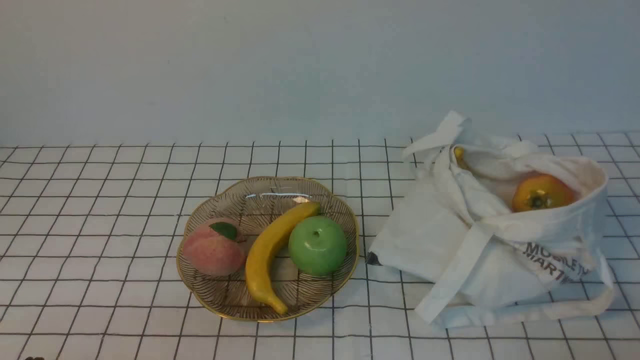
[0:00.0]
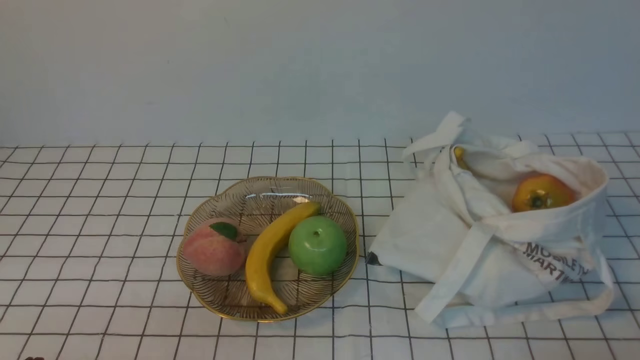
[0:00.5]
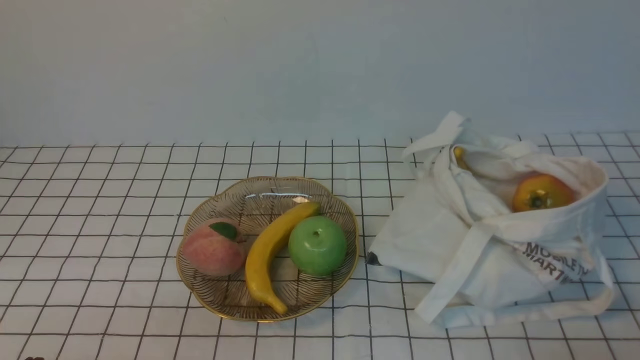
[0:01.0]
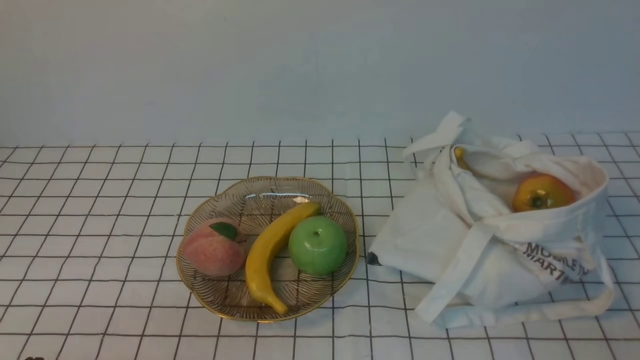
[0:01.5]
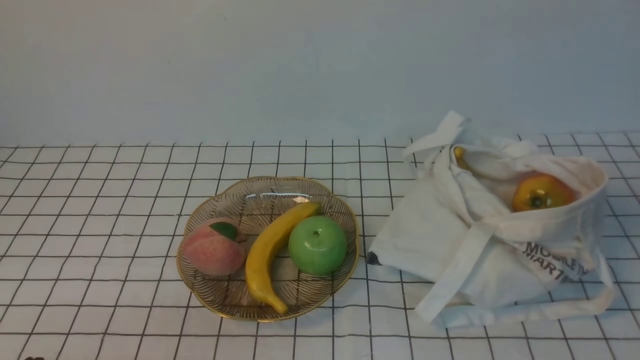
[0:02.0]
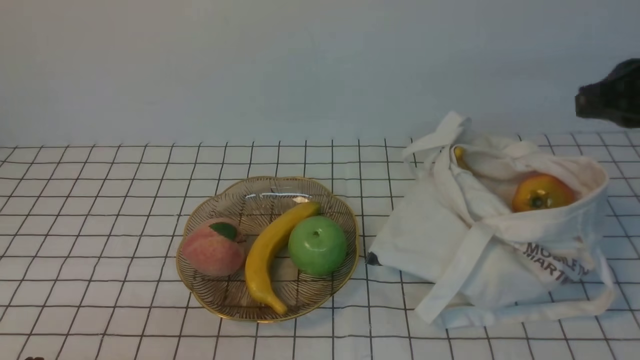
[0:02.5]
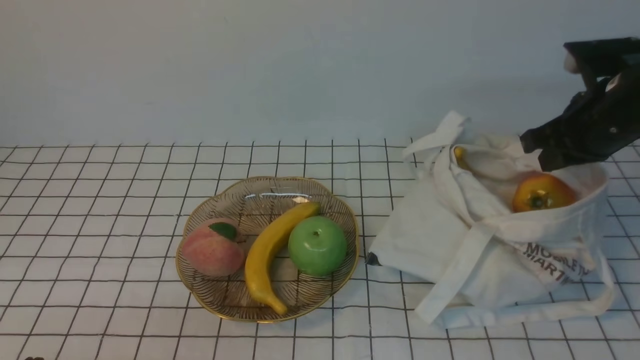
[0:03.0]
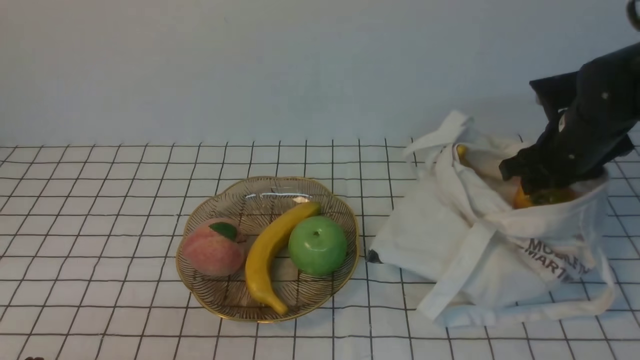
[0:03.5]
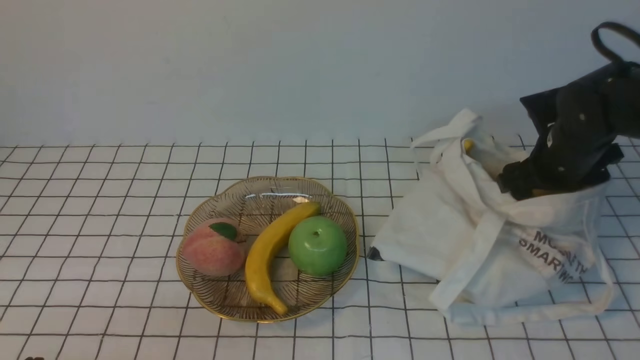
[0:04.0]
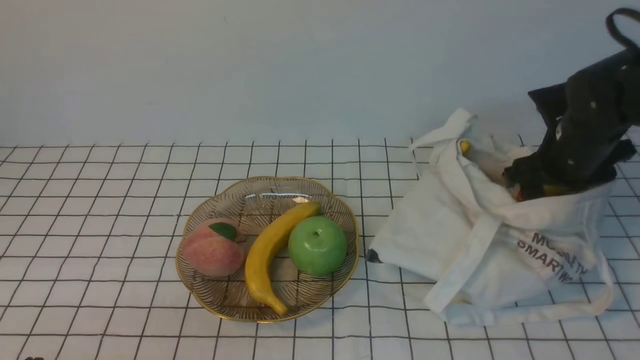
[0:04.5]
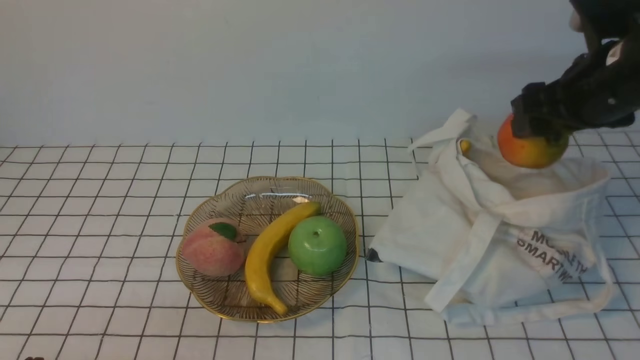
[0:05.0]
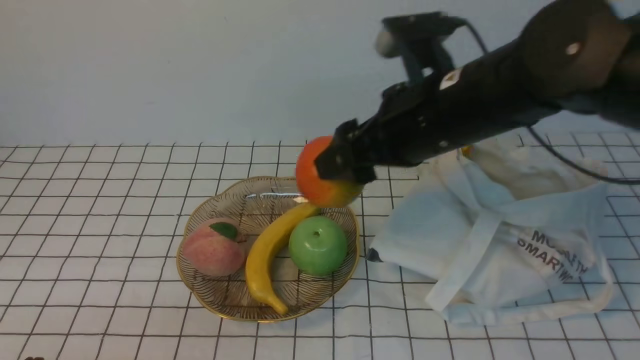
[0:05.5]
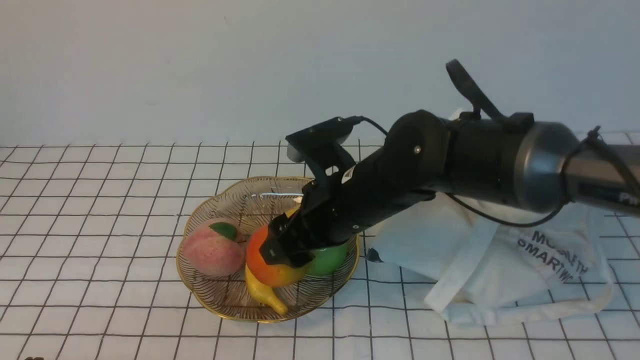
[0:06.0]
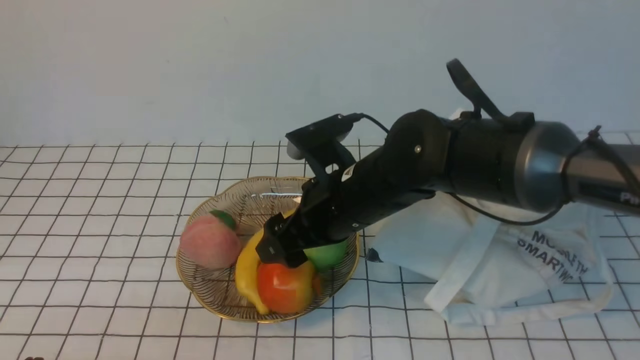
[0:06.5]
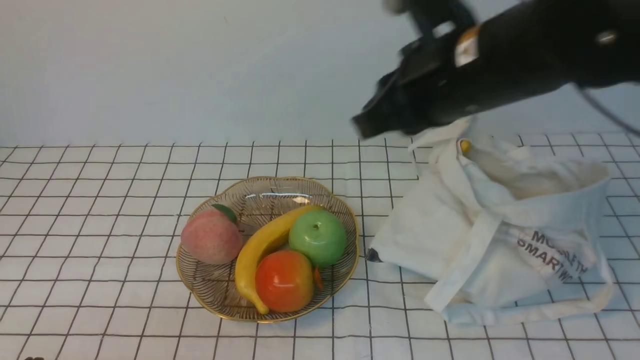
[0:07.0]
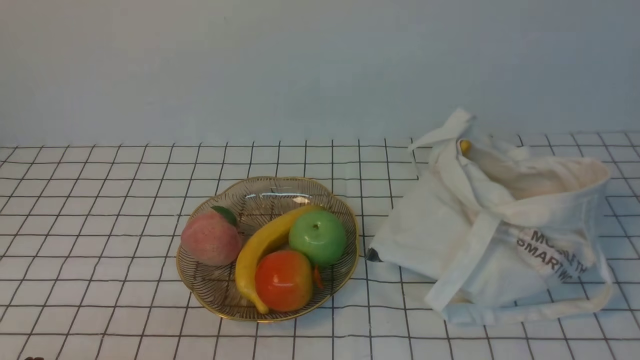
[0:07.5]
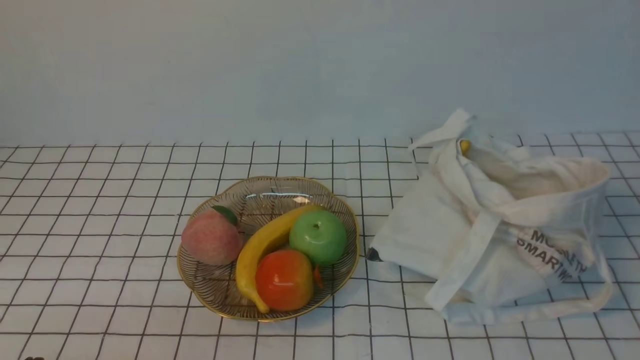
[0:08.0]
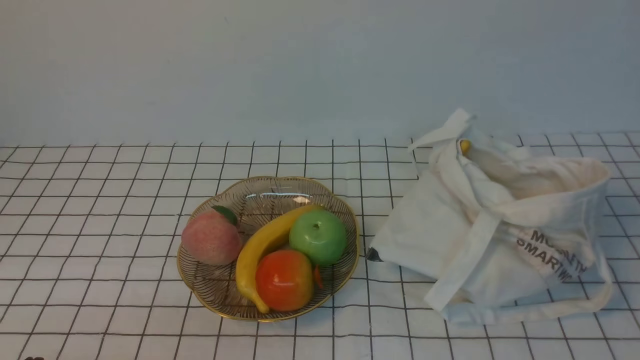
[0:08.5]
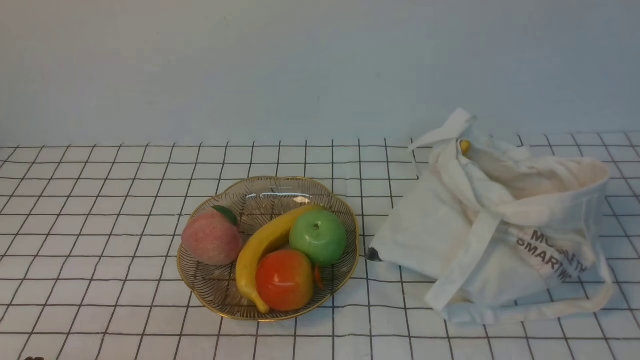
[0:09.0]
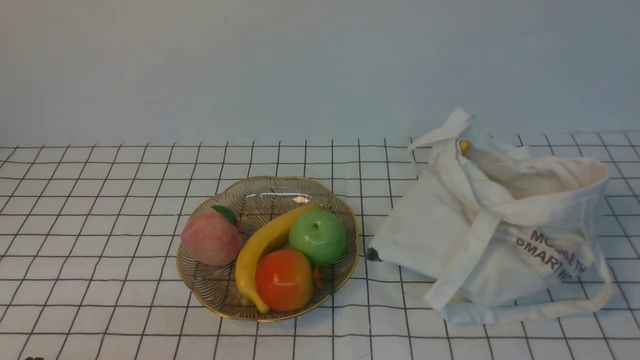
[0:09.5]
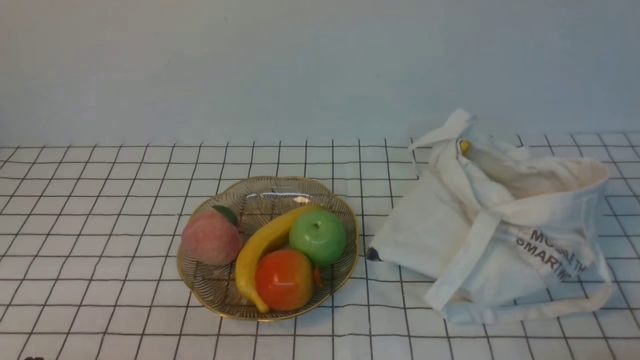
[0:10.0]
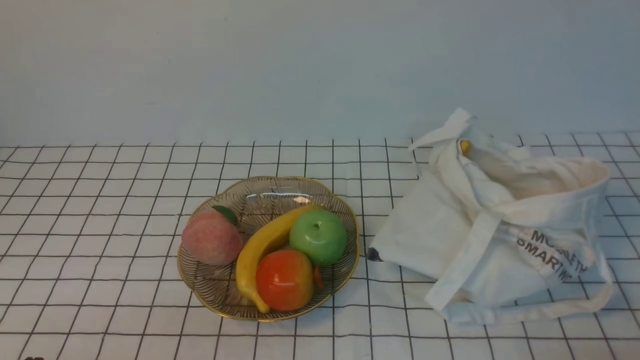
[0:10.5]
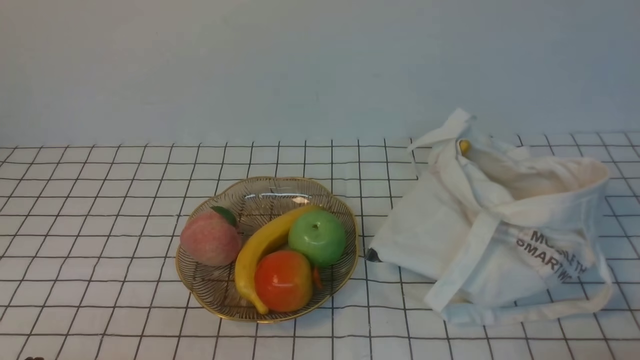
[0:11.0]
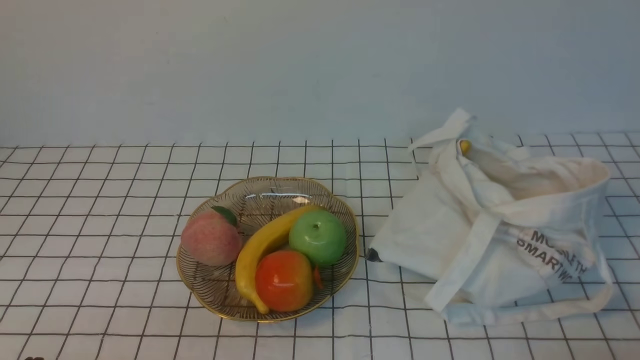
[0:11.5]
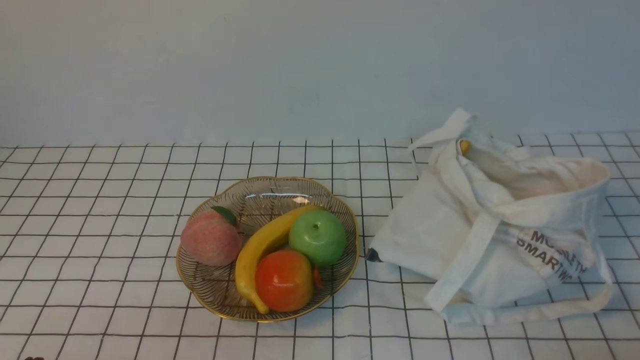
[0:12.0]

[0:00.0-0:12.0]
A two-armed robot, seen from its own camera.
Step, 0:00.0 to 0:04.5: use the right arm to grab a pomegranate from the bag.
Step, 0:05.0 to 0:06.5: use the right arm to put the pomegranate into the empty plate on the left.
0:02.0 to 0:04.0: The right gripper is displaced forward and downward by some 35 cm, and opens.
0:04.0 to 0:06.0: The right gripper shifts roughly 25 cm to the left.
0:06.0 to 0:08.0: The right gripper heads to the right, backward and upward, covering roughly 40 cm, and closes up.

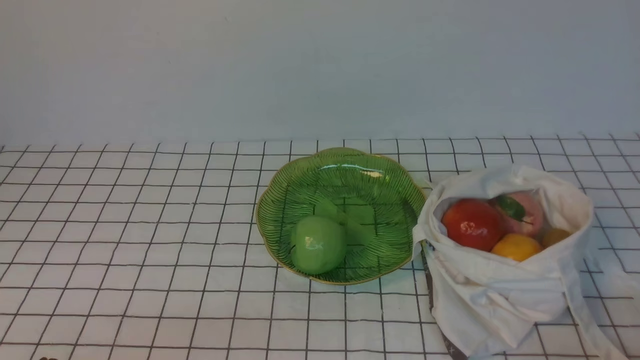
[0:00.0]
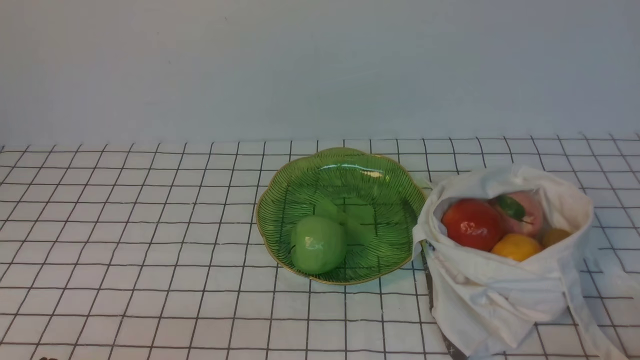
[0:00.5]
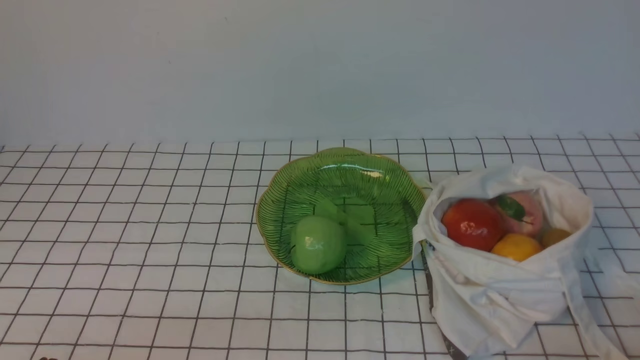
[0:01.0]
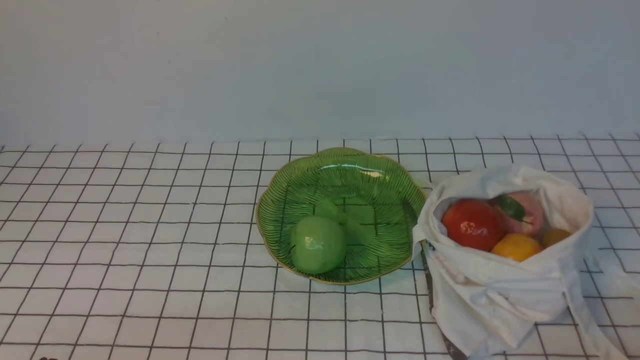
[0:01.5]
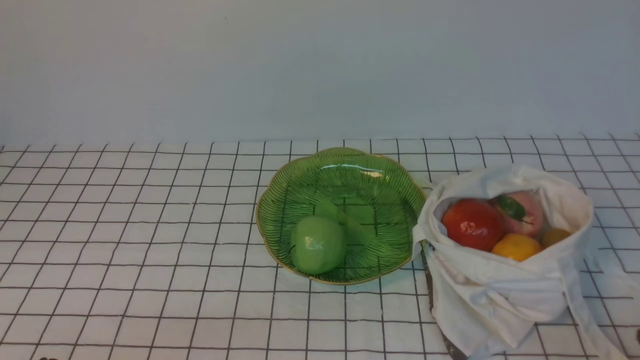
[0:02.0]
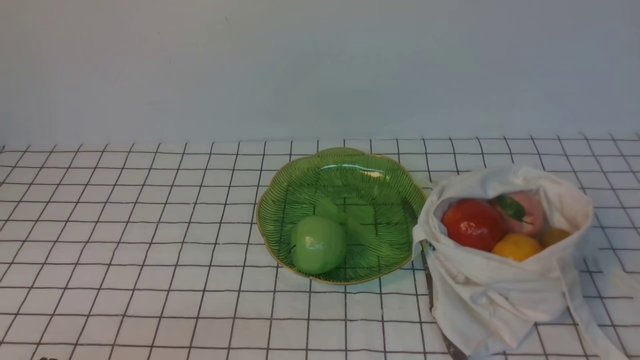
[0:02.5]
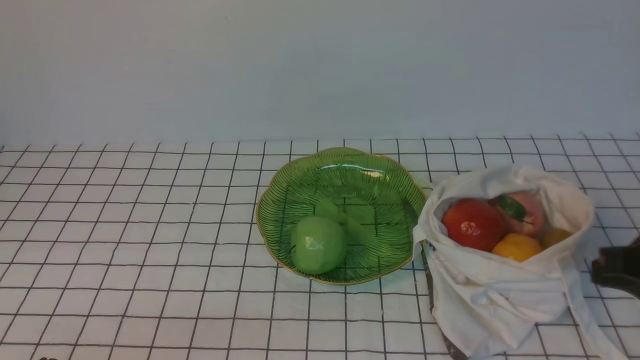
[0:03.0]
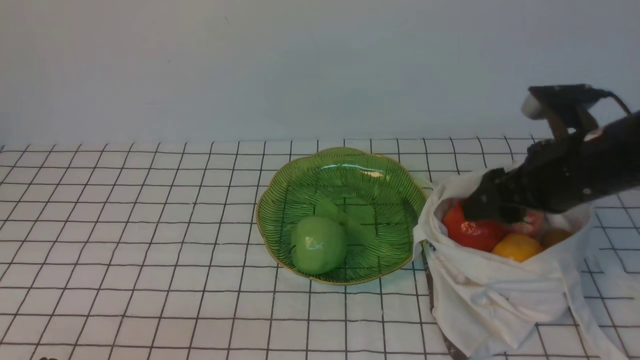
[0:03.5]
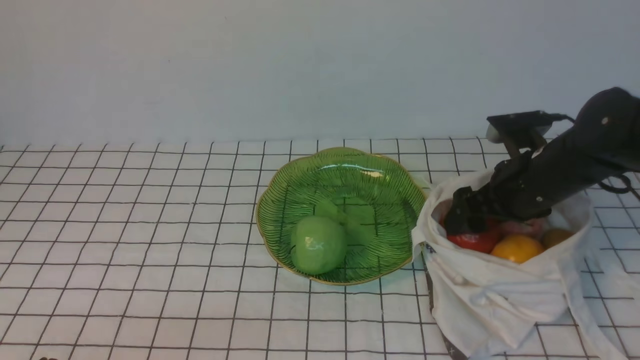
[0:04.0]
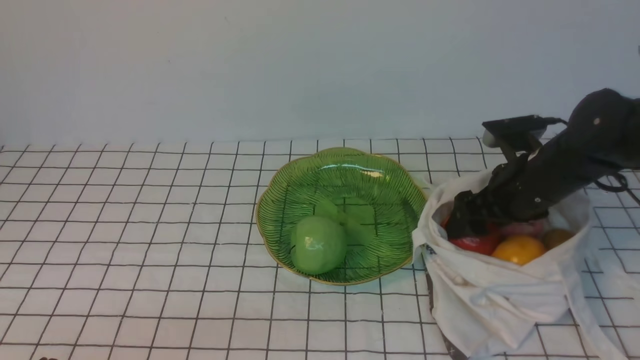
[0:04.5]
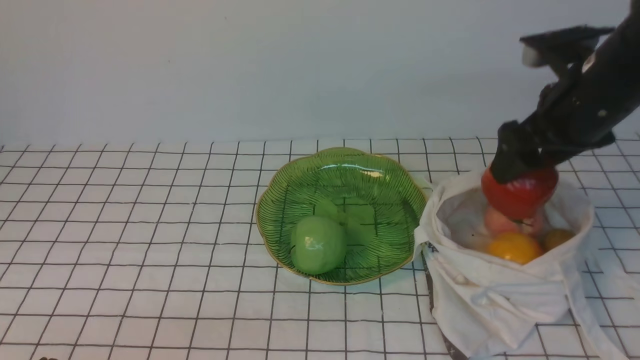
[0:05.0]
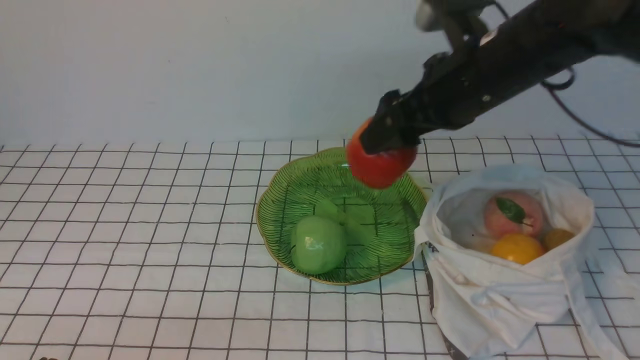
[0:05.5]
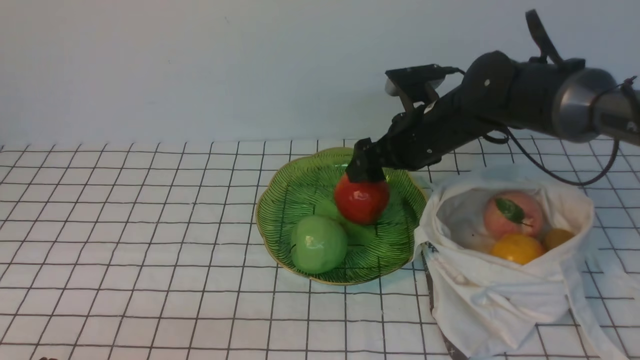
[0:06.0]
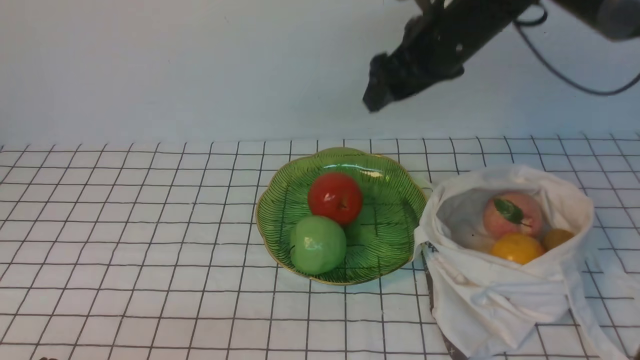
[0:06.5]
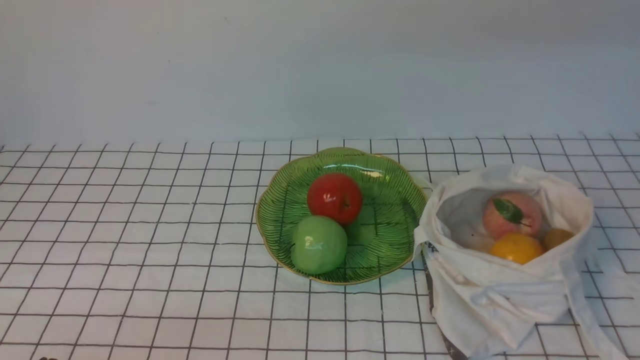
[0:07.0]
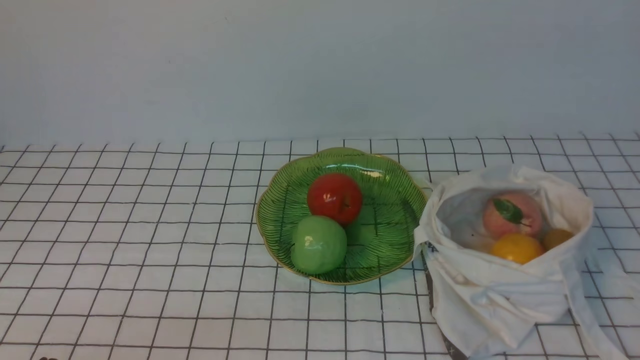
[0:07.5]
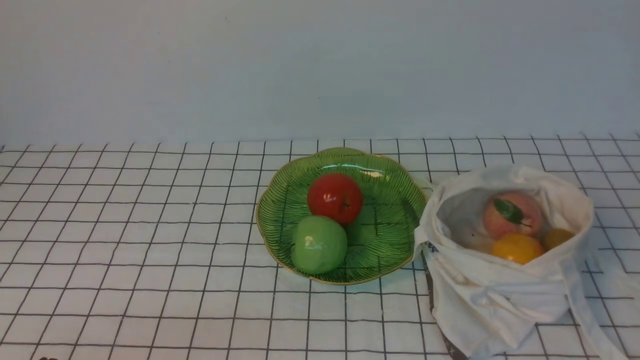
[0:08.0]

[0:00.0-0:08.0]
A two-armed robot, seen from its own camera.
Step, 0:00.0 to 0:04.0: use the right arm to grab an apple from the bag.
Step, 0:04.5 to 0:06.0: use the right arm to put the apple into the empty plate on the left.
0:02.0 to 0:04.0: The right gripper travels forward by approximately 30 cm, and opens.
0:04.0 to 0:06.0: The right gripper travels to the left and forward by some 10 cm, and travels upward and back again, about 15 cm each way.
0:06.0 to 0:08.0: The right gripper travels backward, upward and to the right by some 40 cm, and closes.
